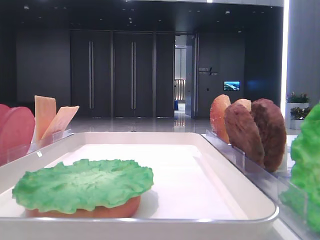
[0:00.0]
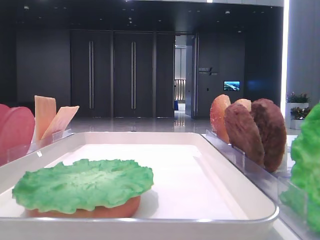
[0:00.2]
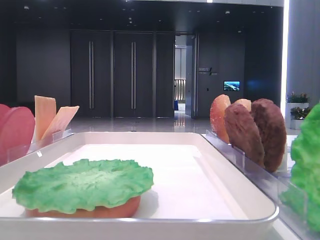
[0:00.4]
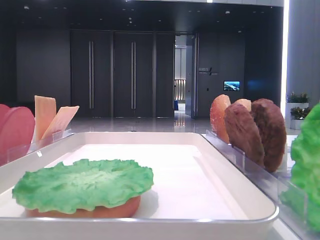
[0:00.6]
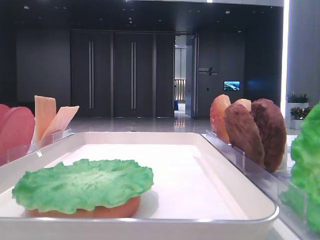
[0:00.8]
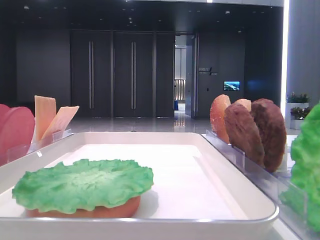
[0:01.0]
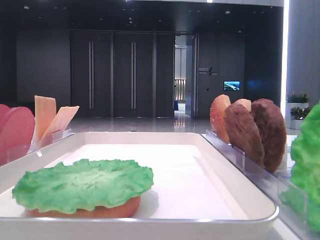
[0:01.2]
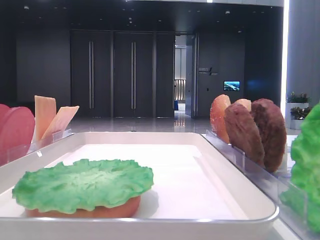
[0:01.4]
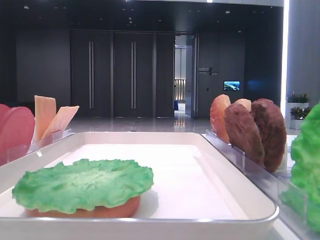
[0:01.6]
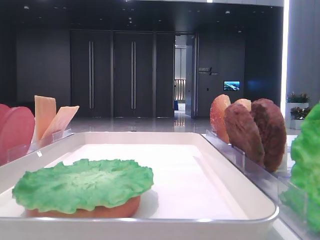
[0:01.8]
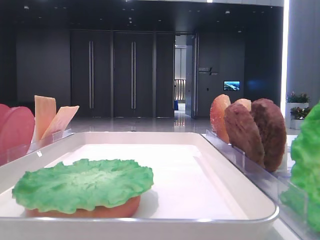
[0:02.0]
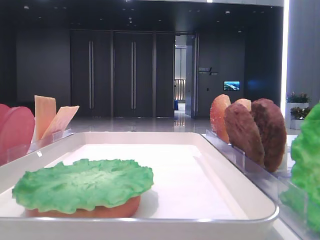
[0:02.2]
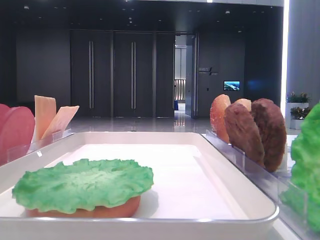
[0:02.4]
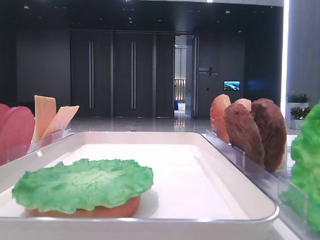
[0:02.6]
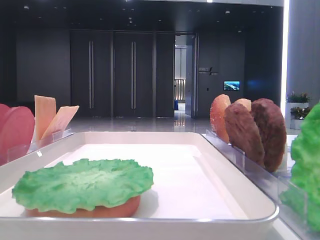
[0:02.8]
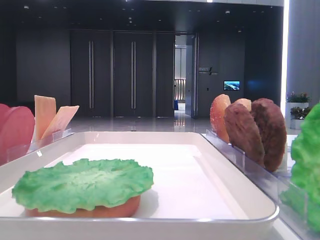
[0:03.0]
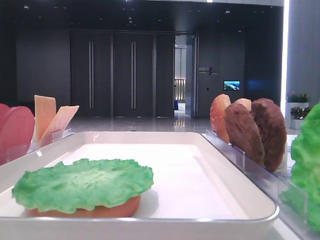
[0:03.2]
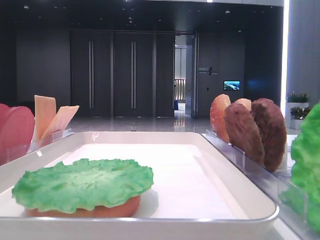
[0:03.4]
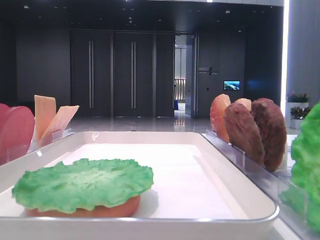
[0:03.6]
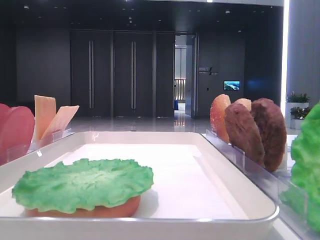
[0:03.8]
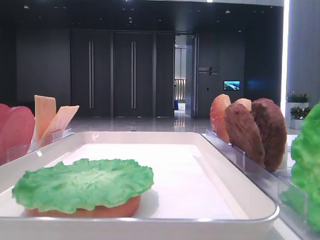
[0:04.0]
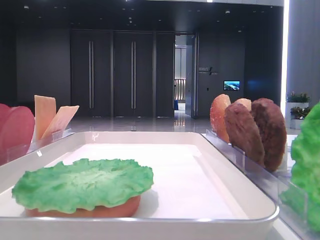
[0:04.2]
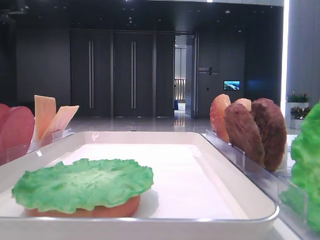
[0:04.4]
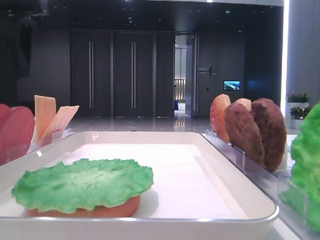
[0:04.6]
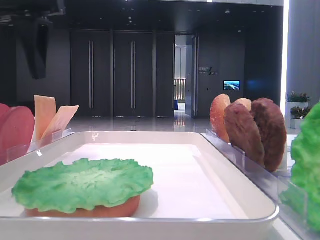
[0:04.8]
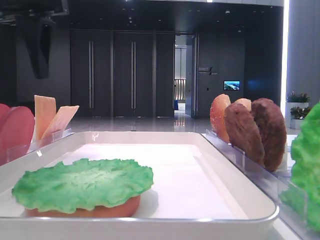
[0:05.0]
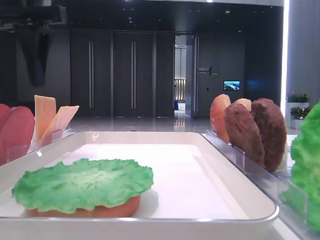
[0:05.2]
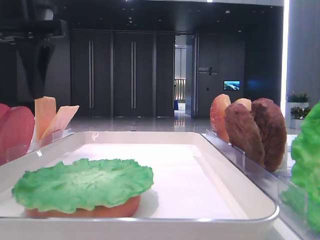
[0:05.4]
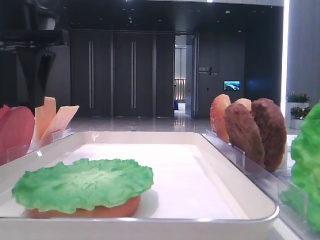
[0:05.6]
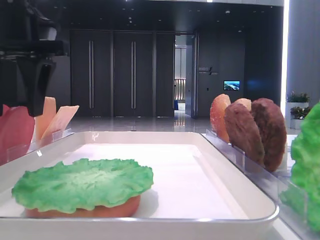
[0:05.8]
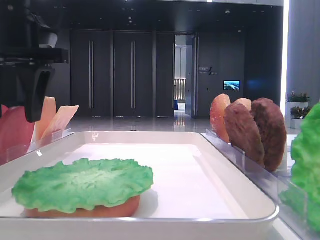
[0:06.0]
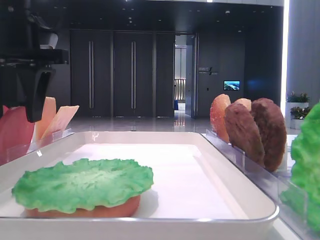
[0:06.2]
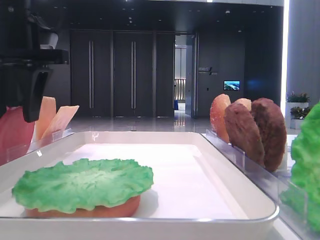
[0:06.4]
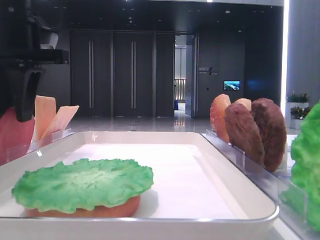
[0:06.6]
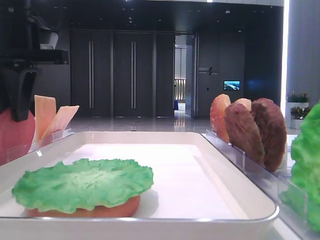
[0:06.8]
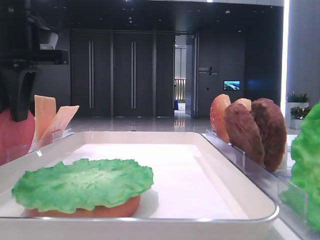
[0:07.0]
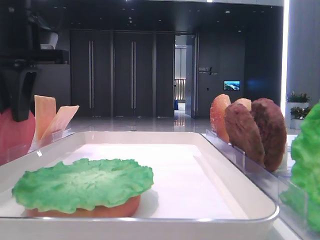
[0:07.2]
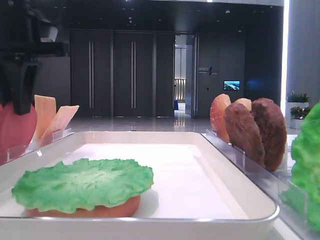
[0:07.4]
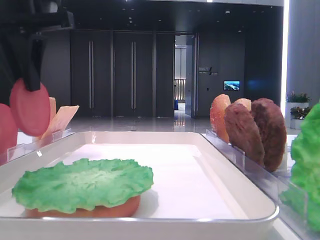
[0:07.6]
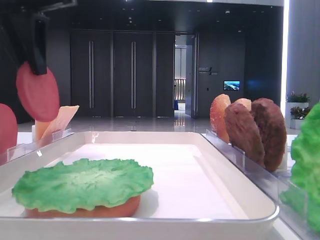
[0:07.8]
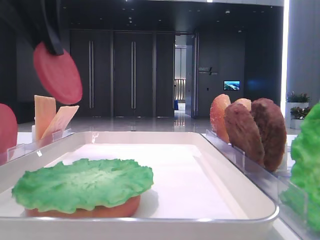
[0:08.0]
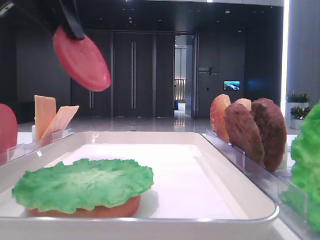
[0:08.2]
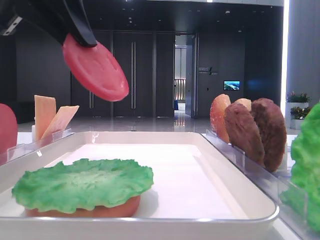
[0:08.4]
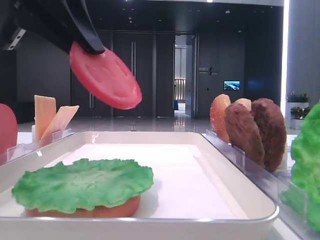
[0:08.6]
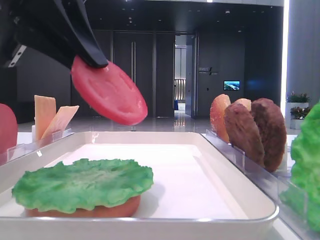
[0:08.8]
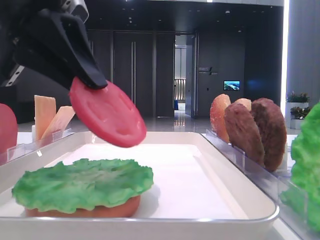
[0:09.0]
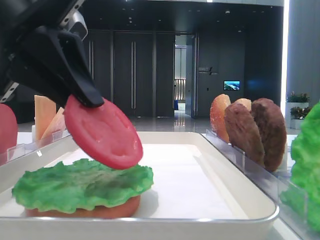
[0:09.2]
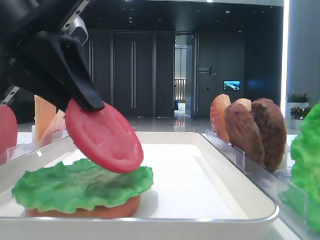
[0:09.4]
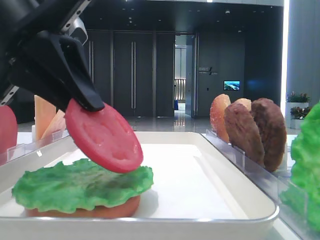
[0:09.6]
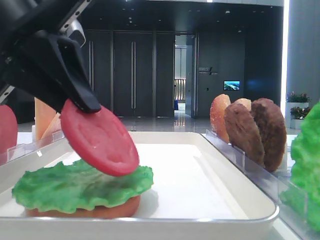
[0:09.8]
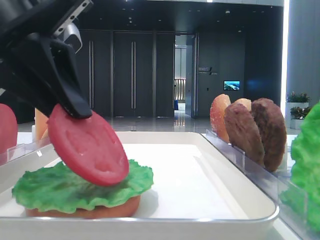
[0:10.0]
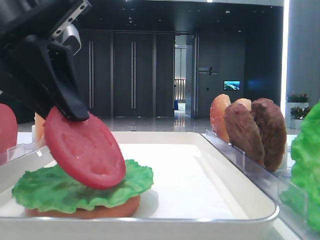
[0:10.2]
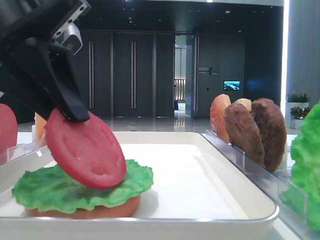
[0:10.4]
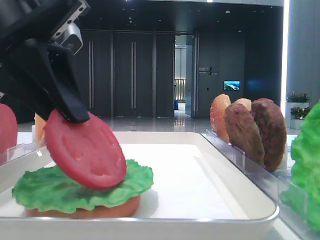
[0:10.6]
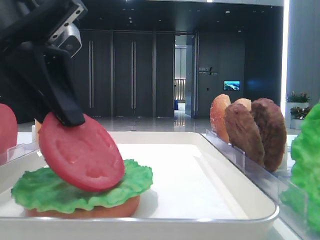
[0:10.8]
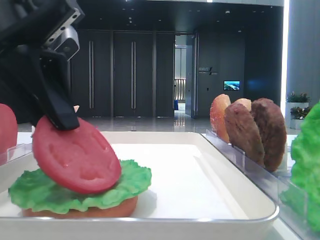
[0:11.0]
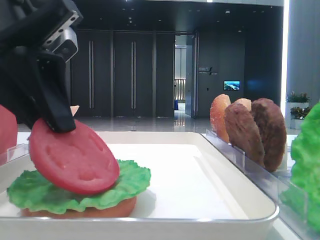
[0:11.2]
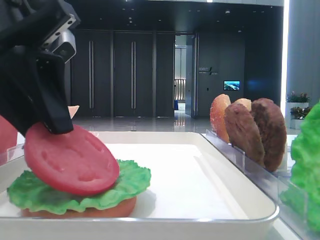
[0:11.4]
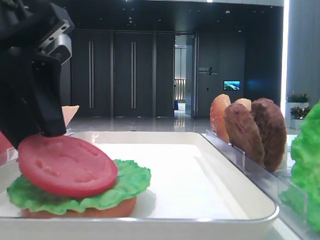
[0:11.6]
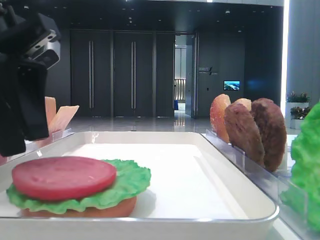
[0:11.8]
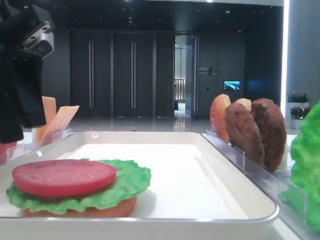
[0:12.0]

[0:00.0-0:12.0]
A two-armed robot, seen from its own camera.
Step, 0.0 to 6.8 s: Pick up the tomato slice with the left hand.
Step, 7.2 to 11.6 s: Place the tomato slice on the lettuce leaf with the left hand.
4.4 to 6.0 s: The left gripper is displaced to the right and downward by about 10 cm.
6.0 to 7.6 s: The left gripper closes.
7.6 to 9.0 s: The left gripper moves backward, some 5 cm.
9.0 to 10.4 s: The grippers stay close to where they were, moving slightly.
10.4 to 12.0 s: The left gripper opens its fingers.

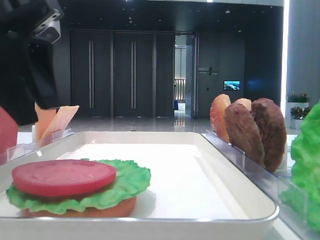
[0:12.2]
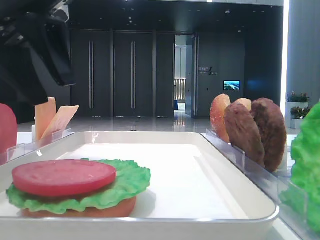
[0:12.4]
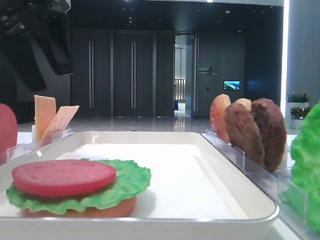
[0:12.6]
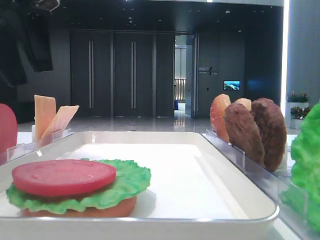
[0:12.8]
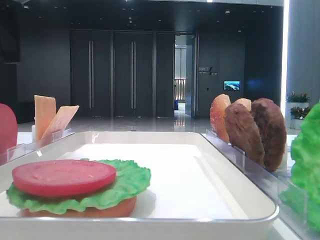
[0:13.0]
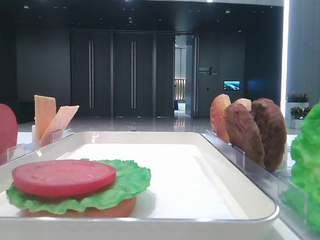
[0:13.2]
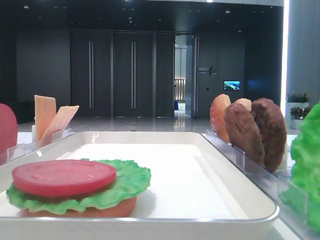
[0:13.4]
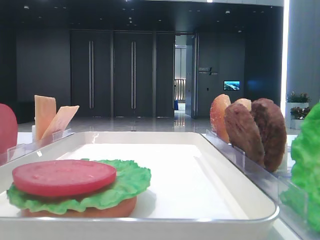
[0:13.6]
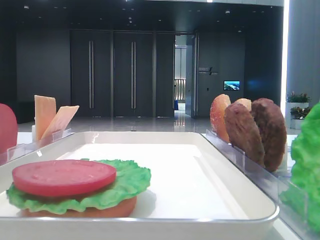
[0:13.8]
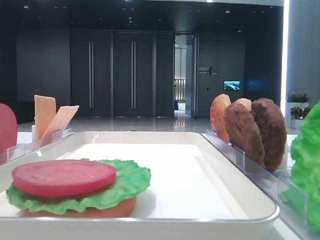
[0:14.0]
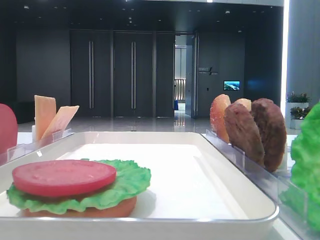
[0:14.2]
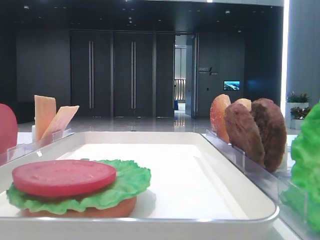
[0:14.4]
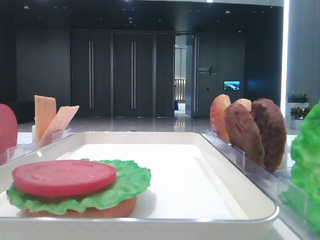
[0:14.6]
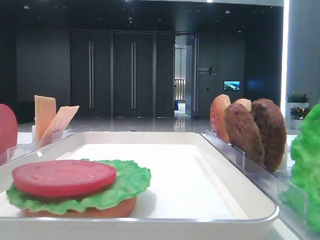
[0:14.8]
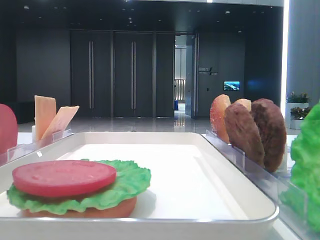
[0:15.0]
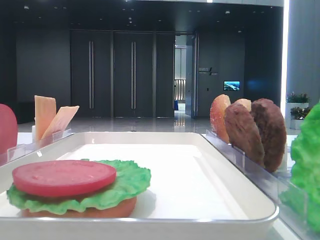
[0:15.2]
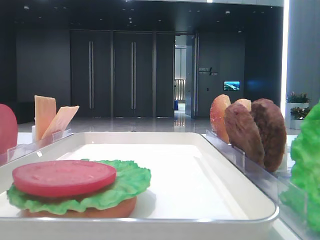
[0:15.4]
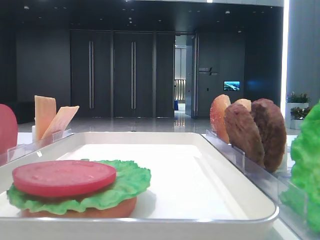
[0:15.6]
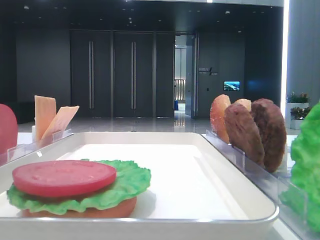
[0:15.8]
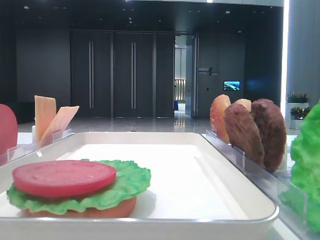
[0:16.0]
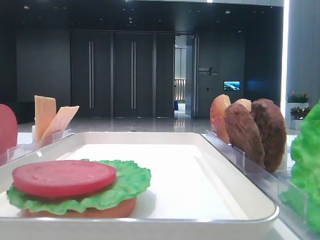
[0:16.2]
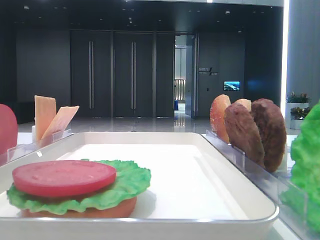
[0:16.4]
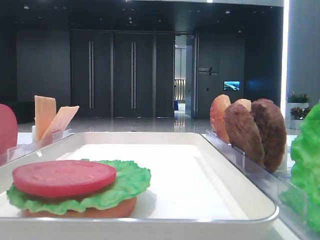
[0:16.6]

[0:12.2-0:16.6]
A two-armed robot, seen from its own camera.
12.2 to 13.6 s: The left gripper shifts roughly 20 cm to the left and upward.

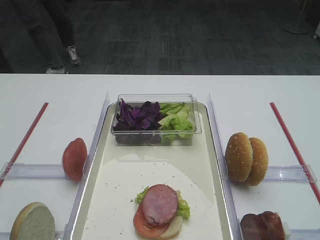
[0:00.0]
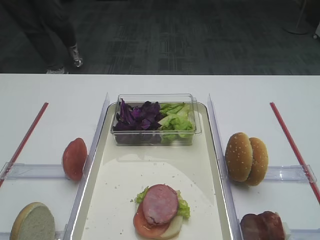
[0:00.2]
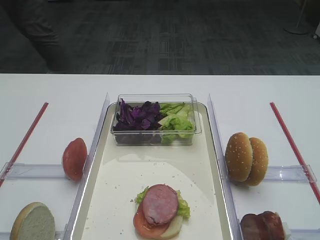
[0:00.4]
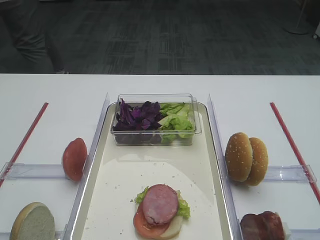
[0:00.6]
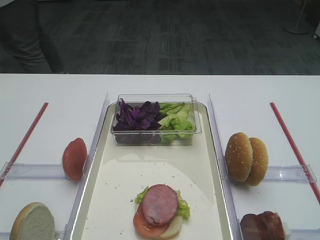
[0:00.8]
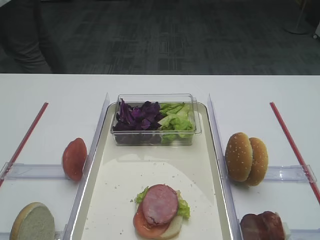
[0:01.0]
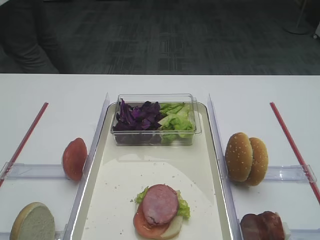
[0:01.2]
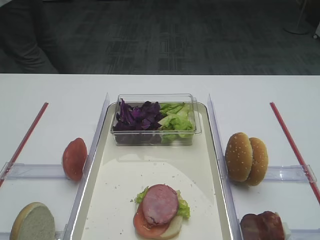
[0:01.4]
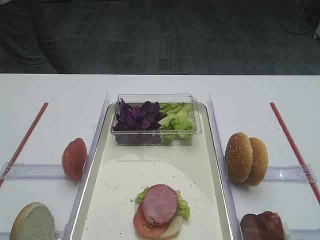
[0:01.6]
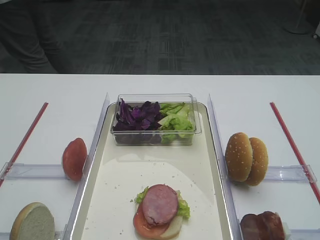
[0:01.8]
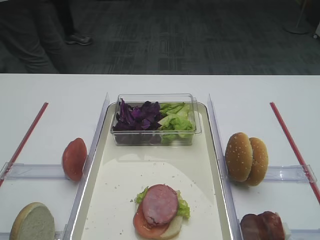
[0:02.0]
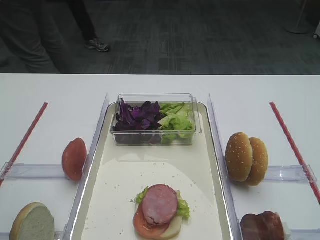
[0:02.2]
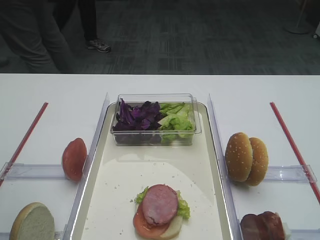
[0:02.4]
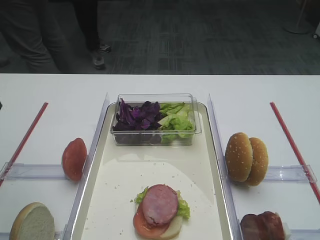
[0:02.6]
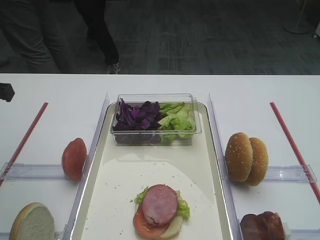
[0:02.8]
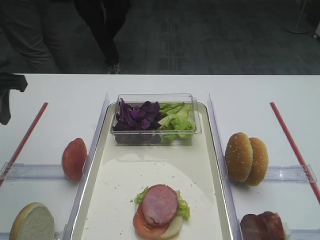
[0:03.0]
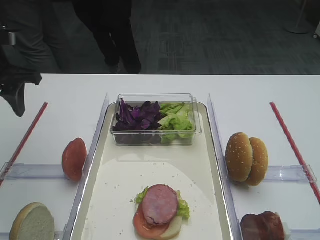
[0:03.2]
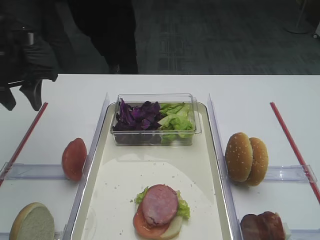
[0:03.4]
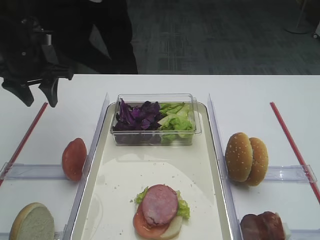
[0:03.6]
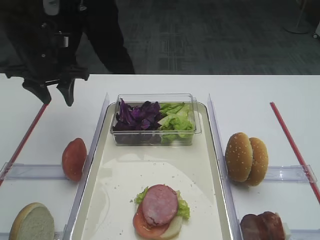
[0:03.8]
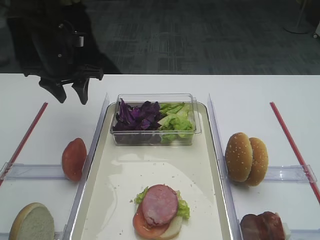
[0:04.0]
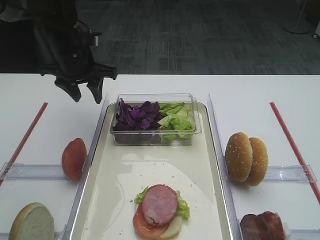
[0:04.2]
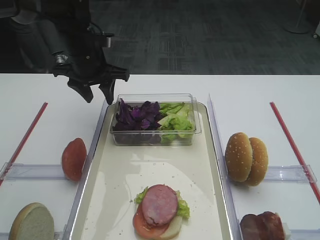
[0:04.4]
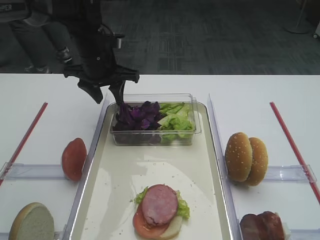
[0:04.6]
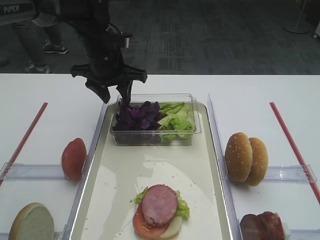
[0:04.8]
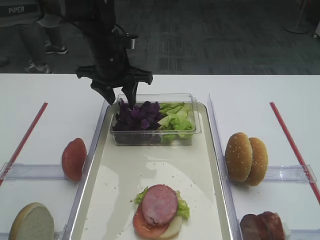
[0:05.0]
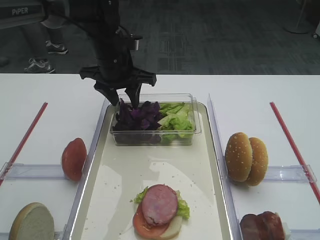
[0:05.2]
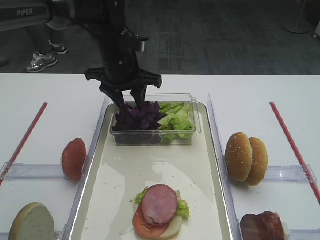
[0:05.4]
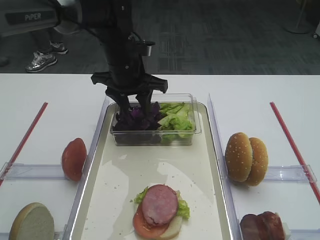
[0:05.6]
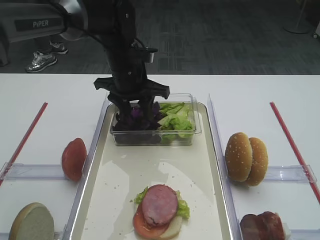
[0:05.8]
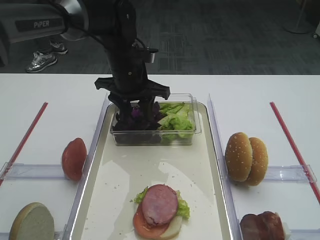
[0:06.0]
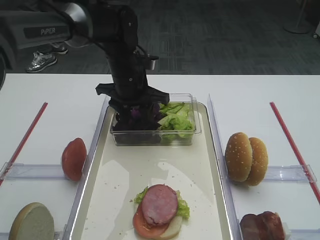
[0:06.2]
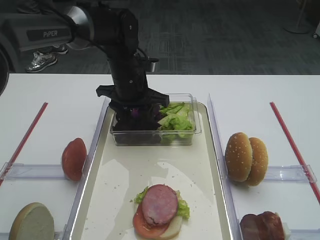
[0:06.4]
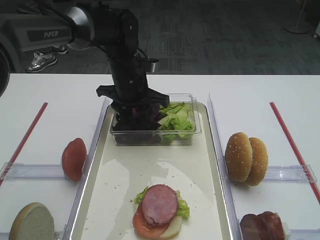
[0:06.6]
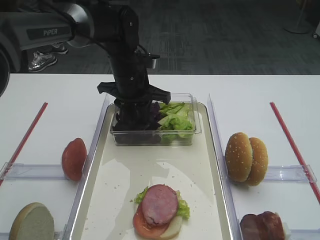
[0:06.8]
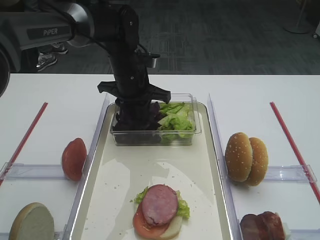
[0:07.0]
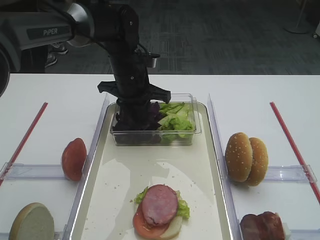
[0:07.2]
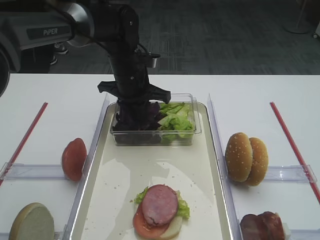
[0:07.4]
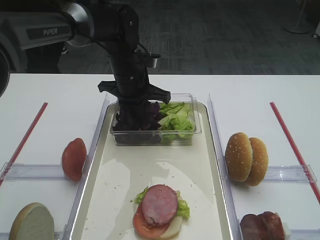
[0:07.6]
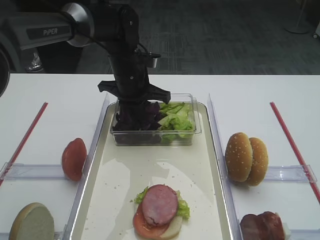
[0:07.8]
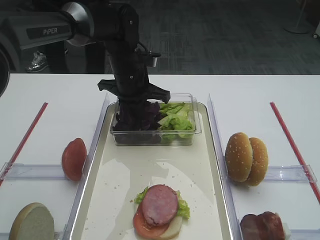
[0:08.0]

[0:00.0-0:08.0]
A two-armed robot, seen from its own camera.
1.6 to 3.2 s: The left gripper shifts some 30 cm forward.
3.2 to 4.8 s: The left gripper shifts approximately 20 cm to the right and forward.
4.8 to 6.4 s: The left gripper travels to the right by some 5 cm.
6.4 to 8.0 s: The left gripper closes its fingers.
